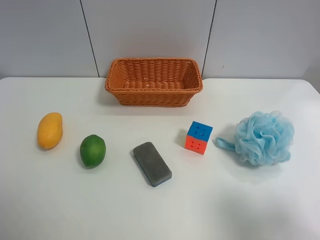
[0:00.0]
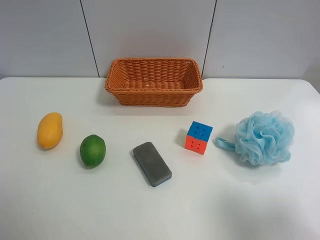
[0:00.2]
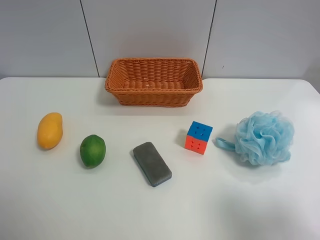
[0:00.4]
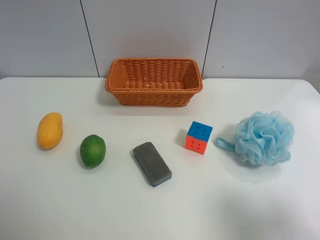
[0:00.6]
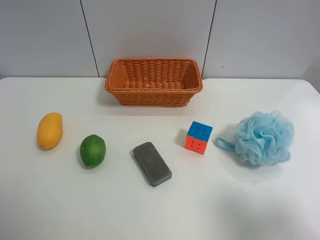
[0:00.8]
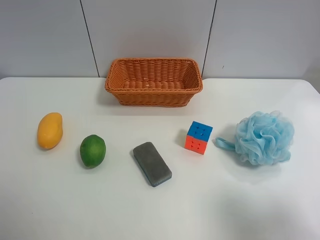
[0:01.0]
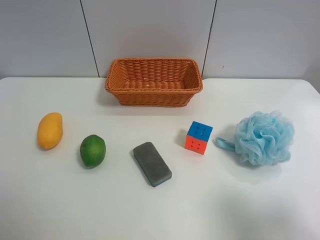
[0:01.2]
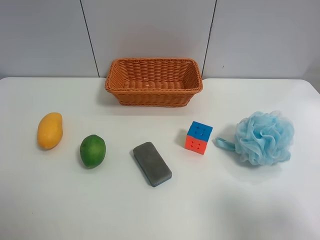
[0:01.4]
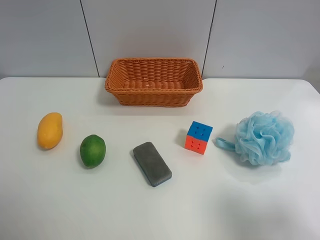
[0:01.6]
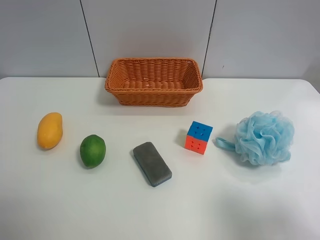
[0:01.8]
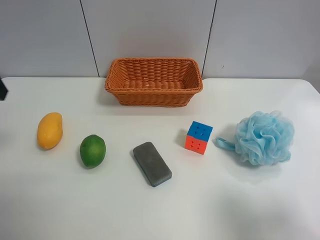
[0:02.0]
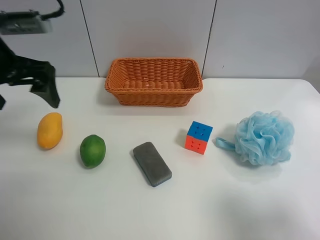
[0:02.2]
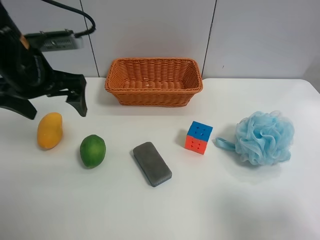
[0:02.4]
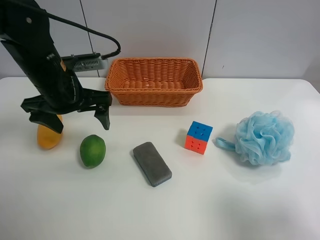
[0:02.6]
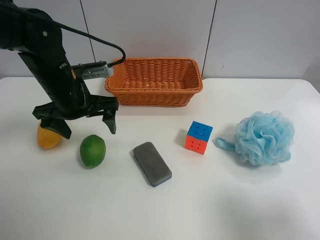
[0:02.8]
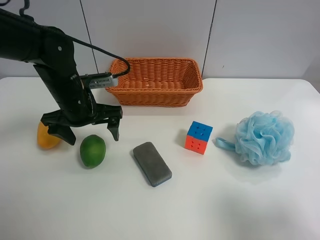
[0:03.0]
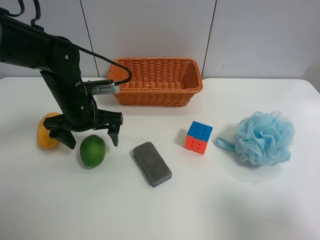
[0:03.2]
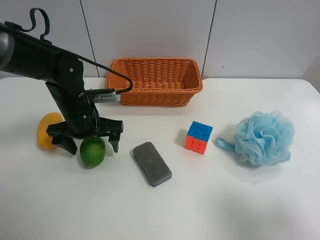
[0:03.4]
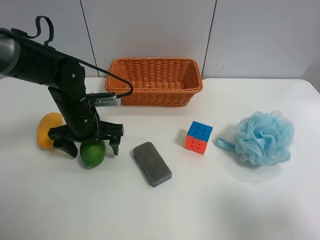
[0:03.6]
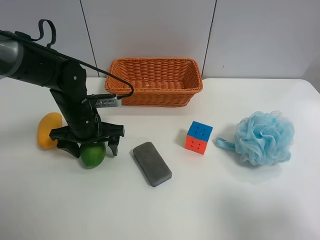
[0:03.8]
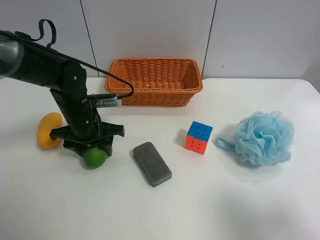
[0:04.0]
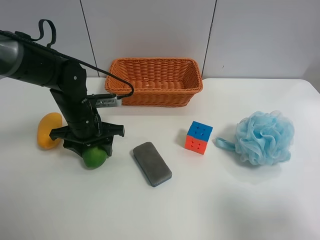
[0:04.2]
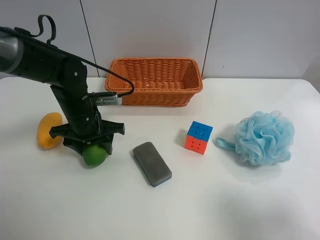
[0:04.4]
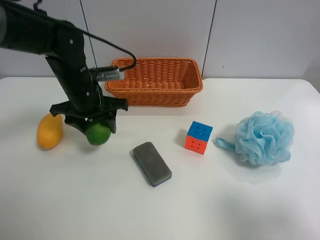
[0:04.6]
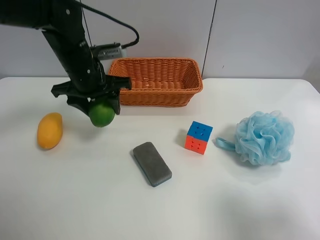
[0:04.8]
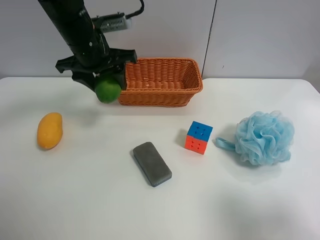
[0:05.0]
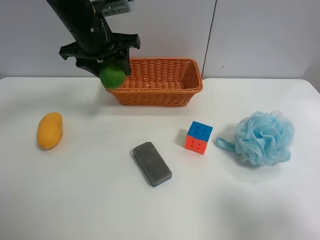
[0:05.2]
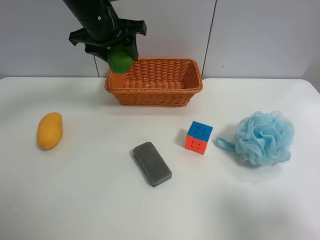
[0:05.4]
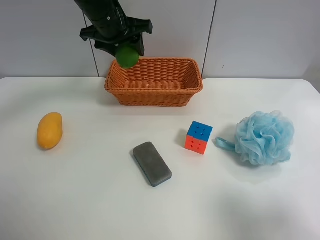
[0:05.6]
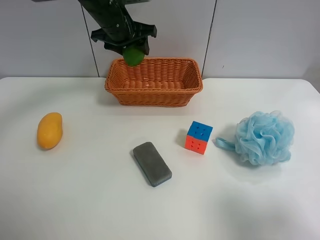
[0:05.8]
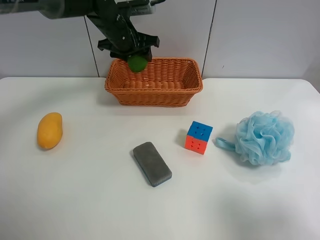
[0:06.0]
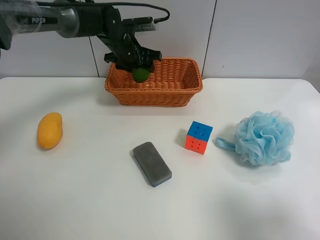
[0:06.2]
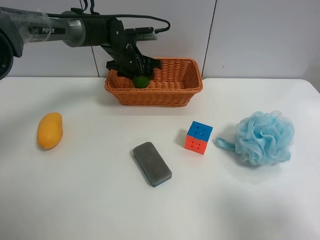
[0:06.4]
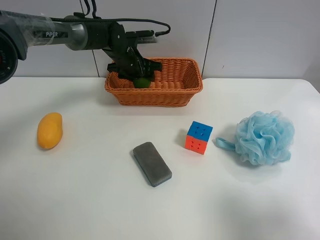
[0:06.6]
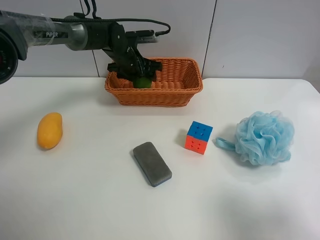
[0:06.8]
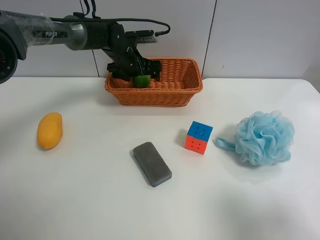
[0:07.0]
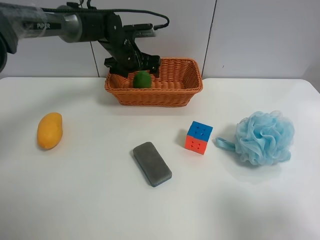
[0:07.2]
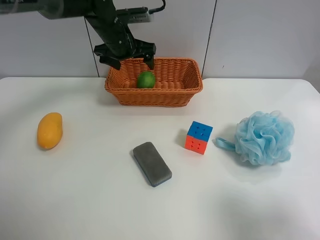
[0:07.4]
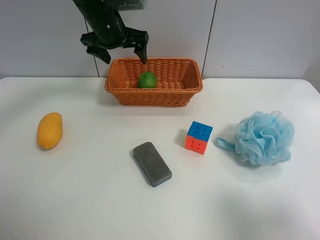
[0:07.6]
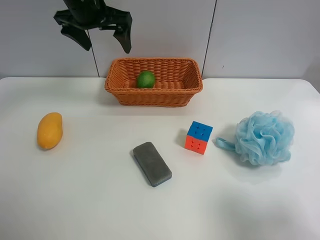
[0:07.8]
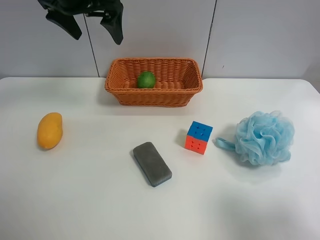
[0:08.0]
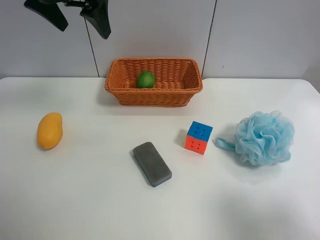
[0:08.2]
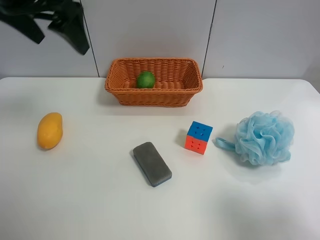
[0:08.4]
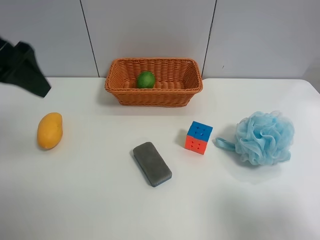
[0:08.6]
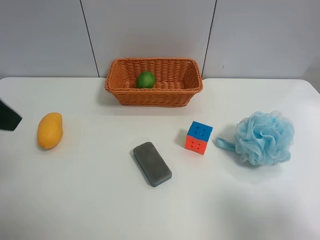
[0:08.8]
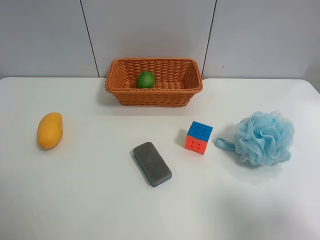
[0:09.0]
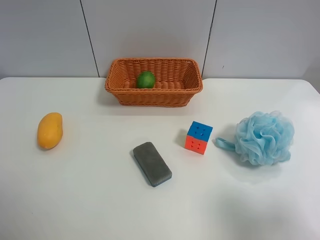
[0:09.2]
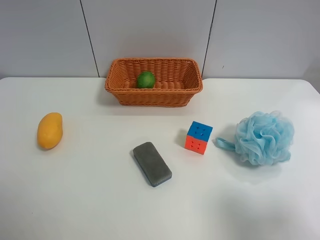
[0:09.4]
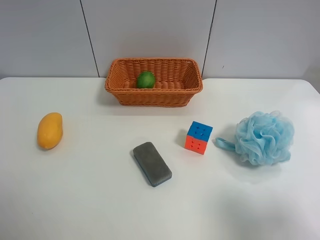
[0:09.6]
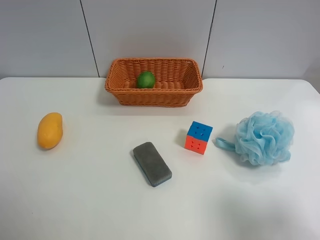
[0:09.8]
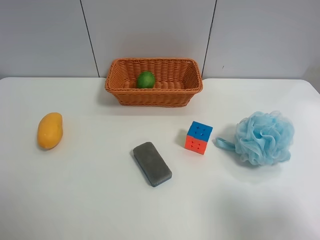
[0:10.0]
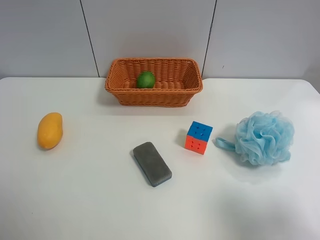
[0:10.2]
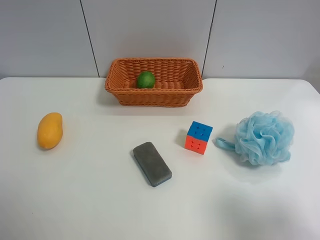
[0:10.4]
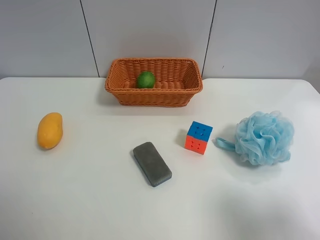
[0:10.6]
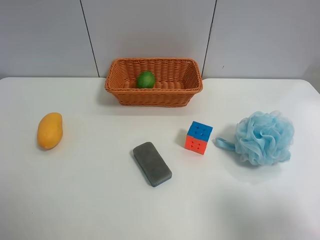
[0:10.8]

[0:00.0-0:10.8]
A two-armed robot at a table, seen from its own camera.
Task of the whole recording: use the left gripper to grab items from the table and place them in the basket.
Step, 0:00.0 to 0:04.0: Grasp the apple rubber puff with the left gripper.
Step, 0:04.2 to 0:07.0: Place the apple rubber puff into the basket with the left gripper.
0:01.6 to 0:03.0: The left gripper heads forward, downward and to the right, covering approximately 35 cm.
0:03.0 to 0:04.6: The left gripper closes up.
0:04.6 to 0:06.2: The left gripper heads forward, covering approximately 15 cm.
0:06.2 to 0:07.8: The left gripper heads upward and backward, covering roughly 15 cm, and opens.
0:07.8 to 0:09.2: The left gripper shifts approximately 35 cm backward and to the left.
